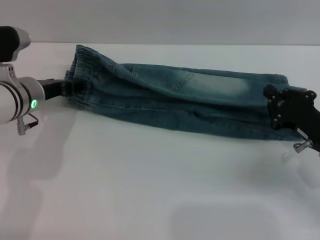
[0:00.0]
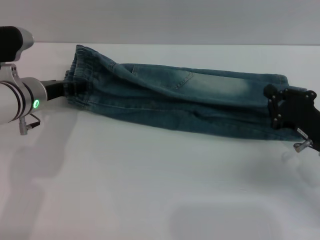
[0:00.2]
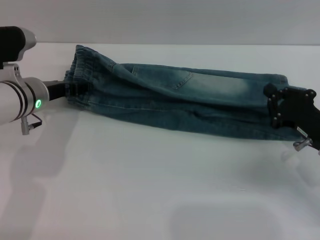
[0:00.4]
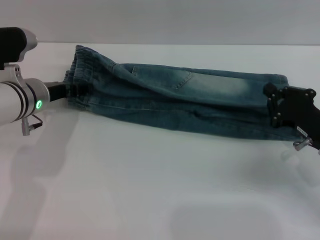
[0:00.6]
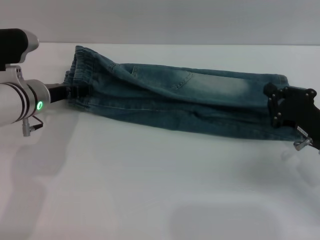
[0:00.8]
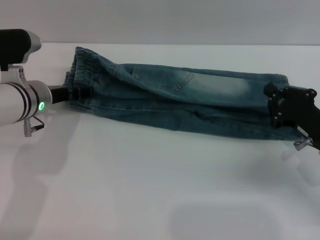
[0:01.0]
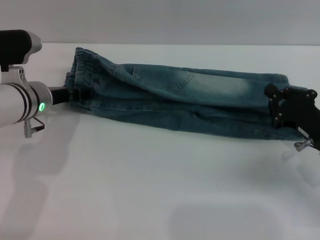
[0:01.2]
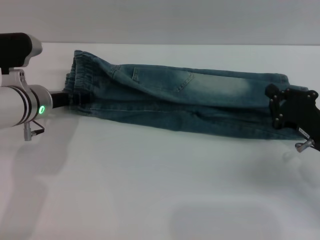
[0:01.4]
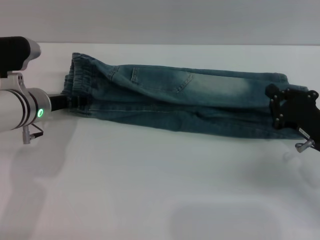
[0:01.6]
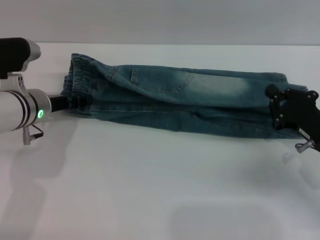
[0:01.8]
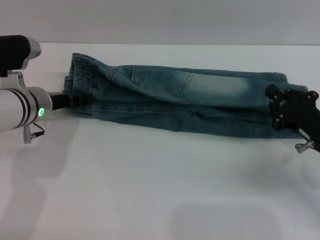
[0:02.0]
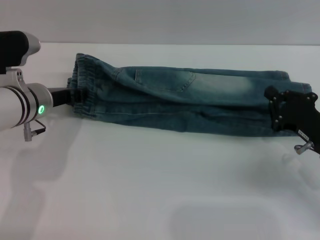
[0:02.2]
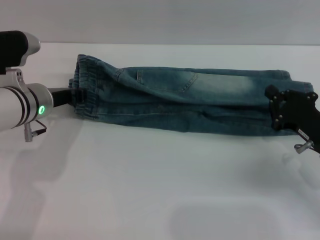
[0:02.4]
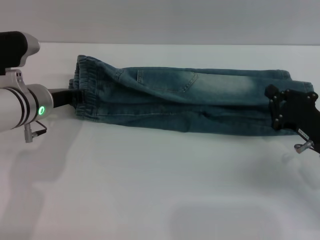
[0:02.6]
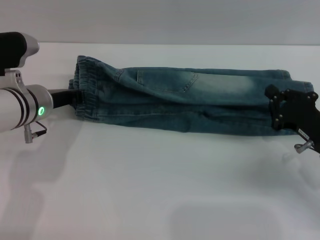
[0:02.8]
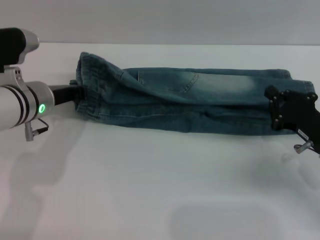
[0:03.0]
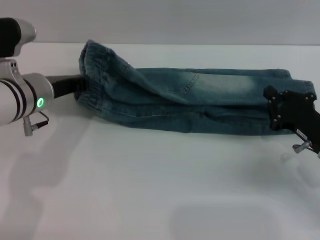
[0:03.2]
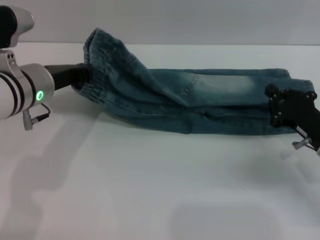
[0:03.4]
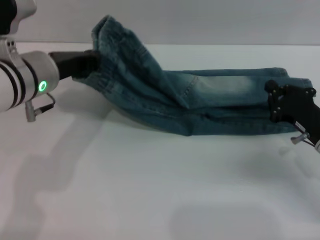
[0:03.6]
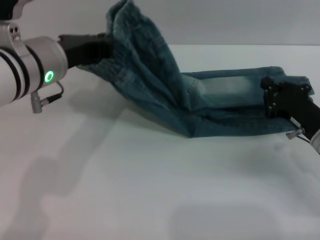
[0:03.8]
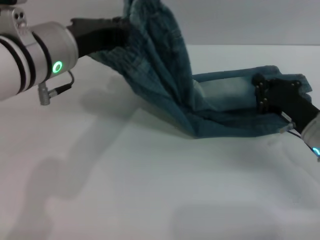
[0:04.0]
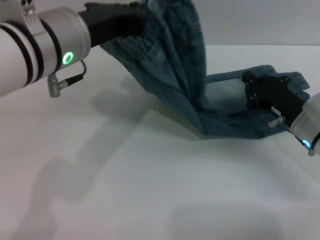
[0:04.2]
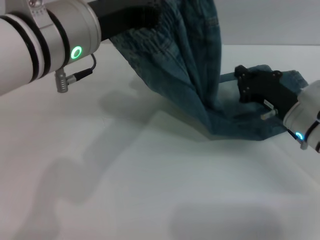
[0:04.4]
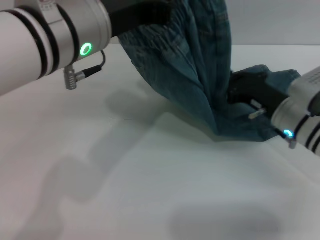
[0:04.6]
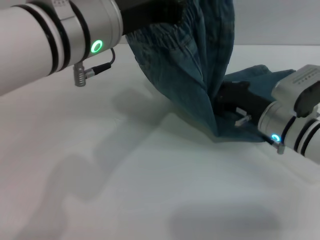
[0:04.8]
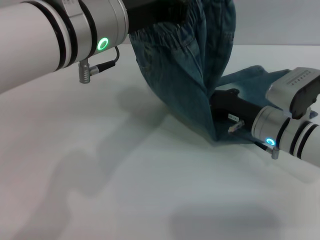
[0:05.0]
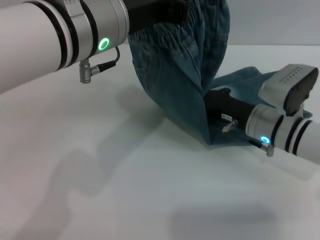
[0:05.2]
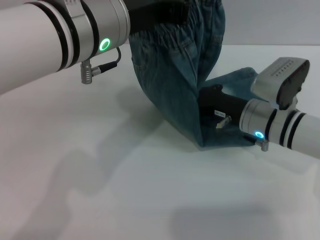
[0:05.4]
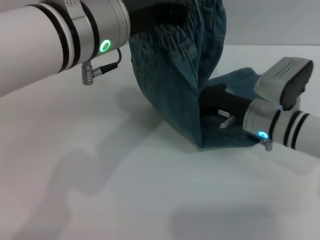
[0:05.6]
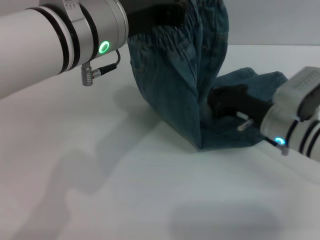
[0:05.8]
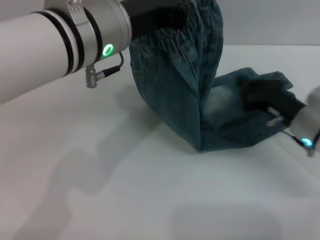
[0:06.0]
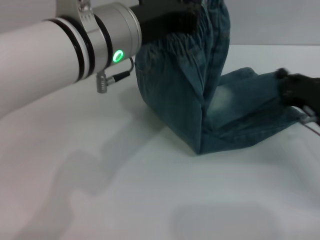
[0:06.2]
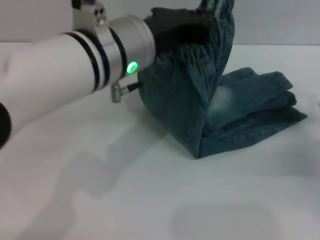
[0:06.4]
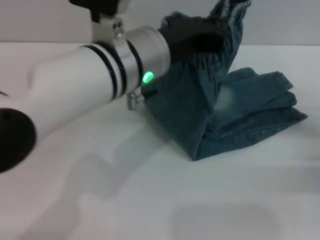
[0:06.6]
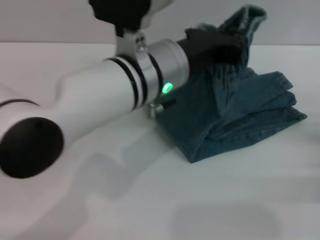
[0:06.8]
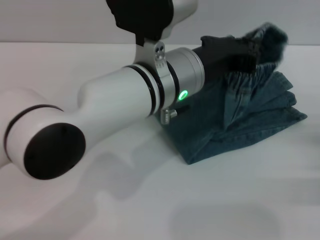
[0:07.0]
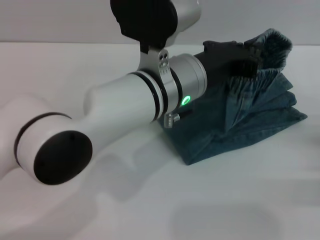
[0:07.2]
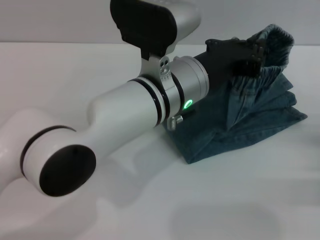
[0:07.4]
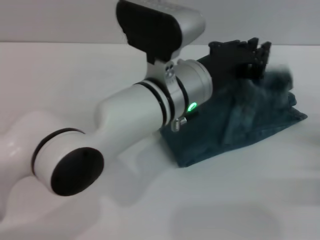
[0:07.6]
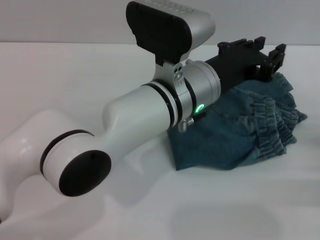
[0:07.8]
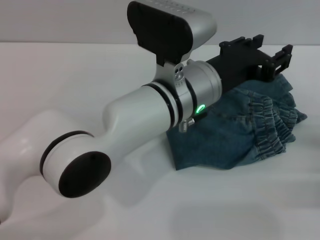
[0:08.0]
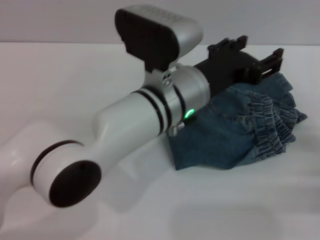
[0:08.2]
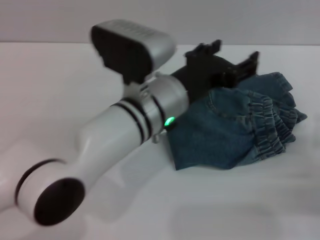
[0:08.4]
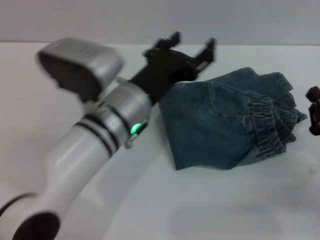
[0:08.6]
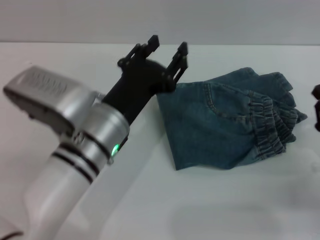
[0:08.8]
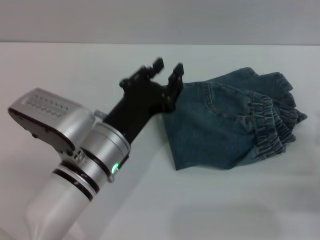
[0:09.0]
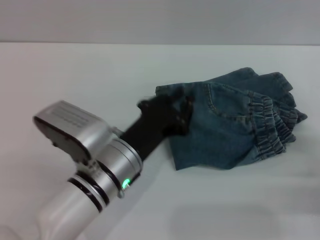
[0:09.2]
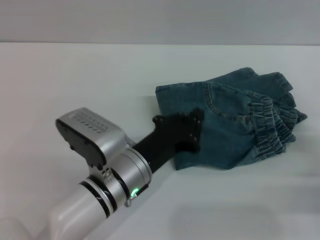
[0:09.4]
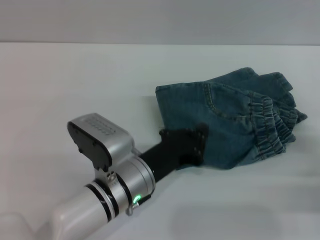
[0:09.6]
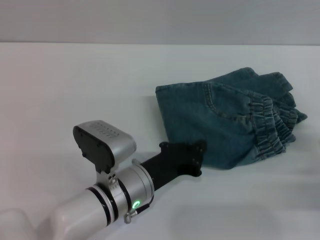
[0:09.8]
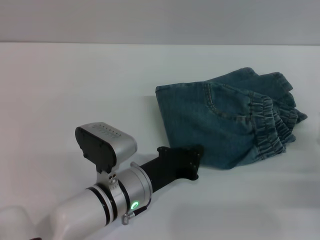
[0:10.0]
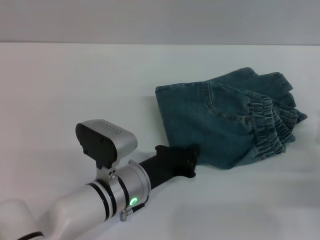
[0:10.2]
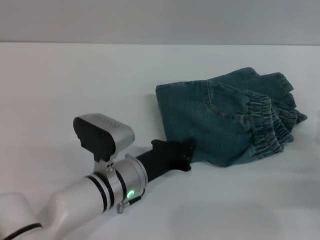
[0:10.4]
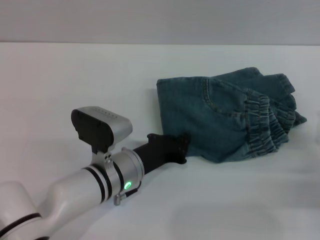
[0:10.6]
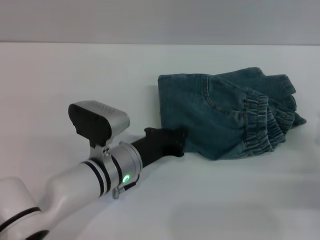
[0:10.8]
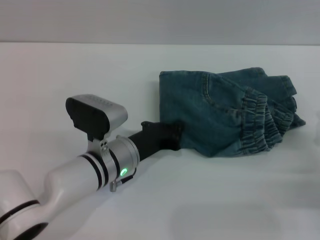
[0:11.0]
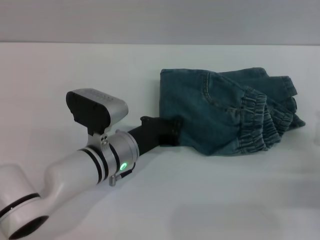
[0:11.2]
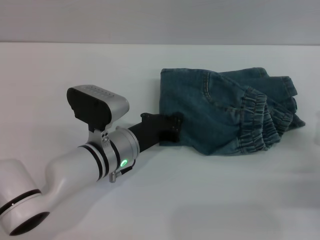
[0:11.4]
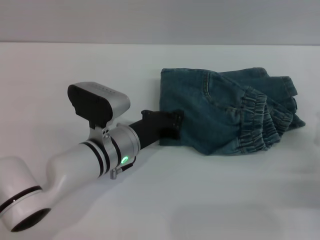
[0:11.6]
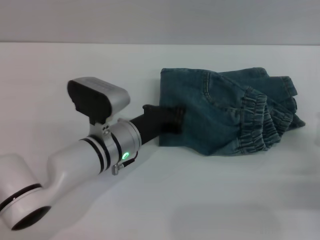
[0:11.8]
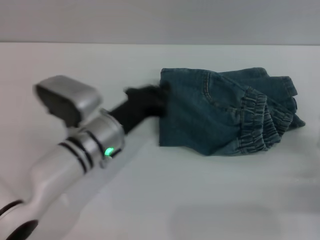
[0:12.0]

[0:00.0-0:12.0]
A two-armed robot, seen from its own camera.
Step, 0:00.0 to 0:02.4: Fold the bottom of the pants upward with both grippers.
Step, 0:02.6 to 0:08.0: Fold the pants from left to right with the left gripper.
Step, 0:08.2 to 0:12.0: Place the folded trousers onto the center area with the left grippers.
0:00.0 to 0:01.6: There are only small adjustments of the grippers.
0:01.6 to 0:03.0: The left gripper closes up.
0:03.0 to 0:04.4: The right gripper heads forward, covering roughly 5 cm; the left gripper shifts some 20 cm upward, to the right and backward.
0:04.4 to 0:06.0: The right gripper travels to the left and back again, roughly 5 cm each way.
0:06.0 to 0:07.6: The left gripper heads downward and to the right, covering approximately 10 cm, while the right gripper moves to the right and backward, approximately 15 cm.
0:07.6 to 0:09.0: The left gripper moves to the left, downward and backward, roughly 15 cm, and opens its fingers.
0:09.0 to 0:10.4: The left gripper travels downward by roughly 5 cm, and closes up.
0:10.4 to 0:12.0: The left gripper ends up approximately 5 cm from where it was.

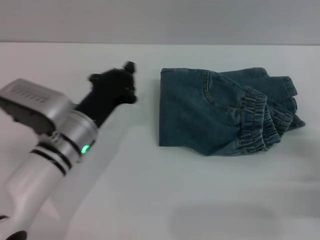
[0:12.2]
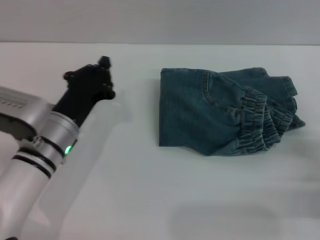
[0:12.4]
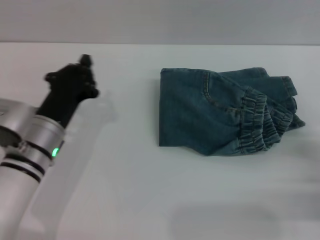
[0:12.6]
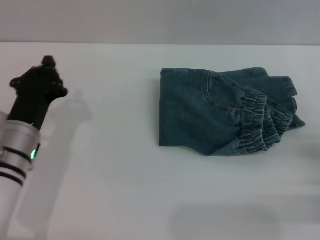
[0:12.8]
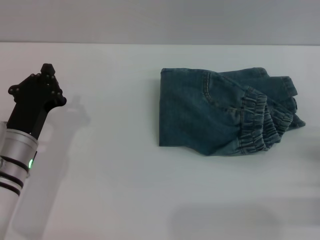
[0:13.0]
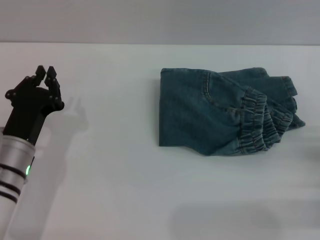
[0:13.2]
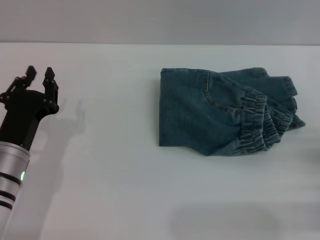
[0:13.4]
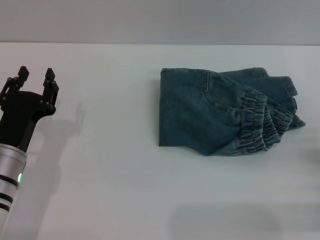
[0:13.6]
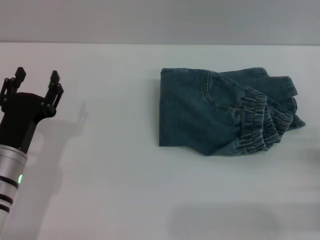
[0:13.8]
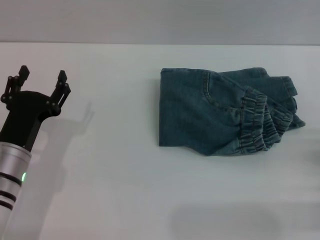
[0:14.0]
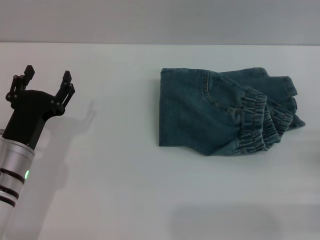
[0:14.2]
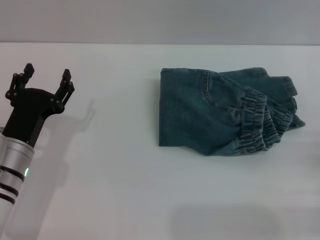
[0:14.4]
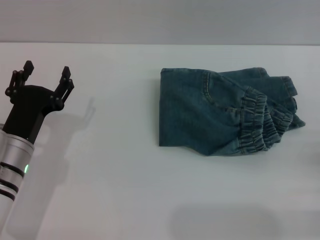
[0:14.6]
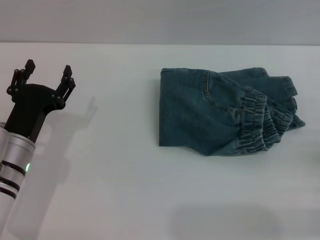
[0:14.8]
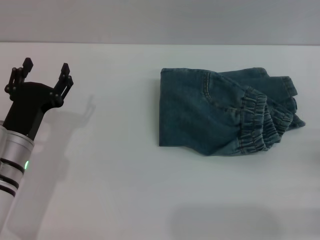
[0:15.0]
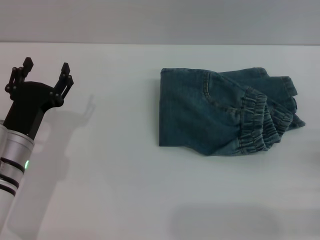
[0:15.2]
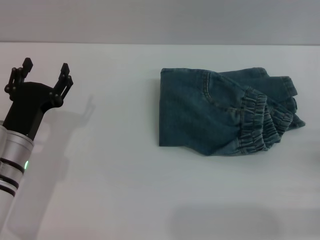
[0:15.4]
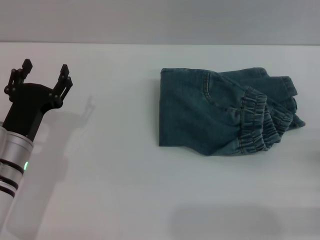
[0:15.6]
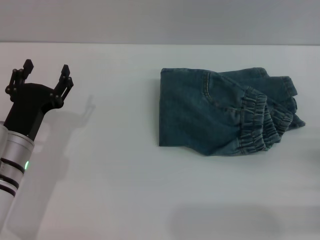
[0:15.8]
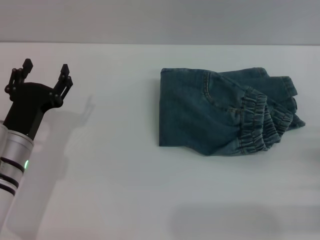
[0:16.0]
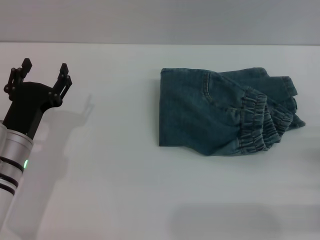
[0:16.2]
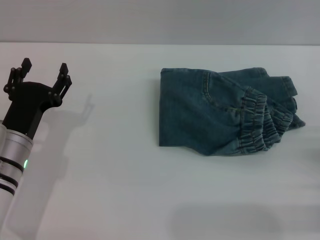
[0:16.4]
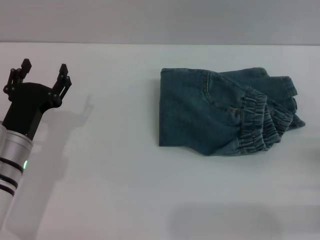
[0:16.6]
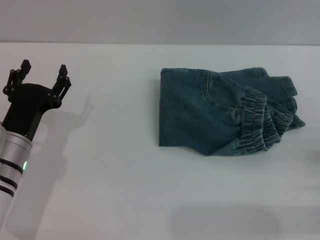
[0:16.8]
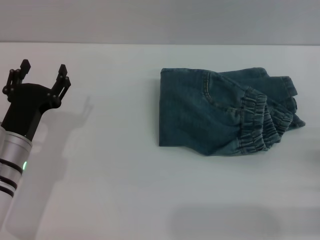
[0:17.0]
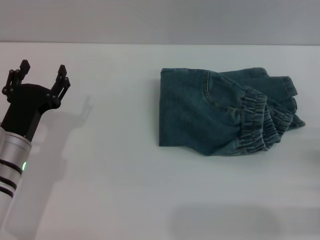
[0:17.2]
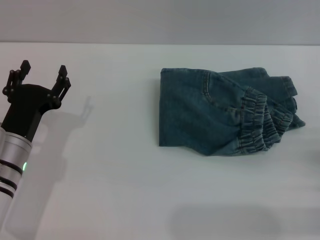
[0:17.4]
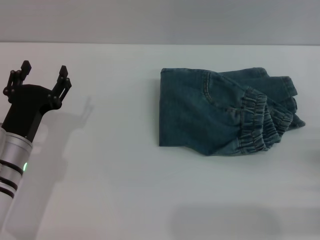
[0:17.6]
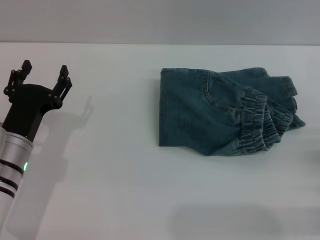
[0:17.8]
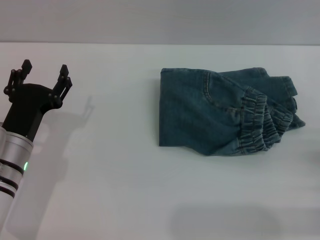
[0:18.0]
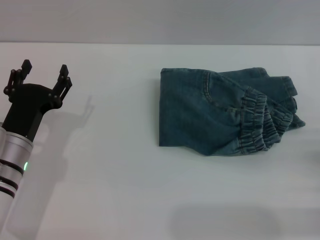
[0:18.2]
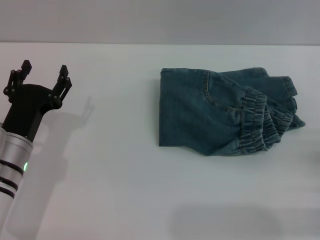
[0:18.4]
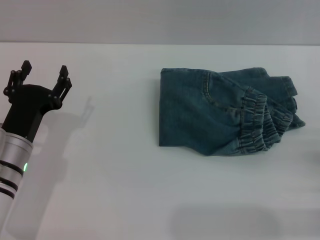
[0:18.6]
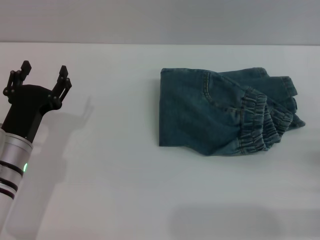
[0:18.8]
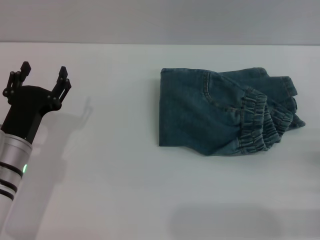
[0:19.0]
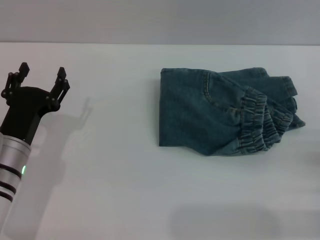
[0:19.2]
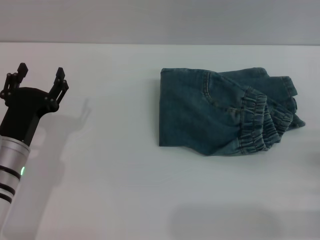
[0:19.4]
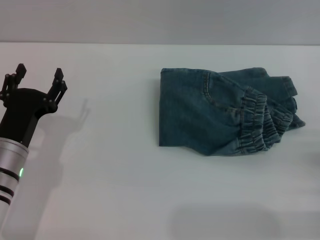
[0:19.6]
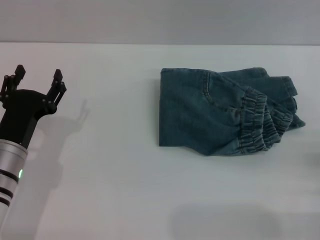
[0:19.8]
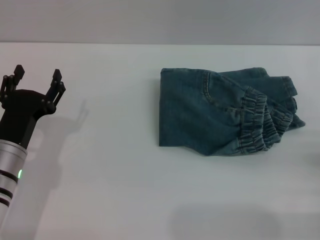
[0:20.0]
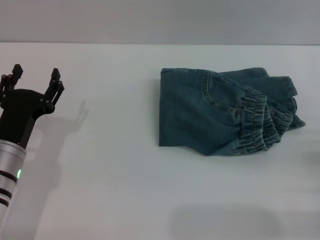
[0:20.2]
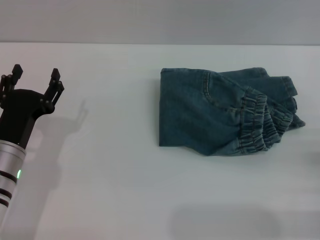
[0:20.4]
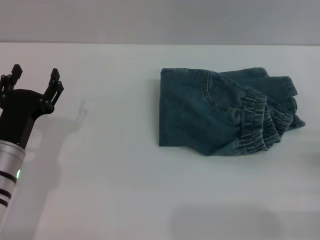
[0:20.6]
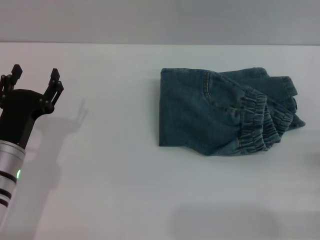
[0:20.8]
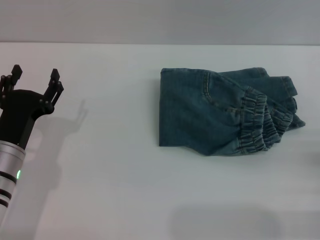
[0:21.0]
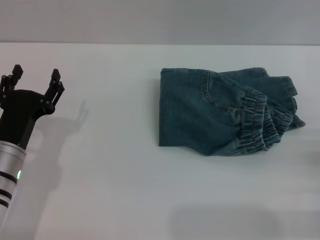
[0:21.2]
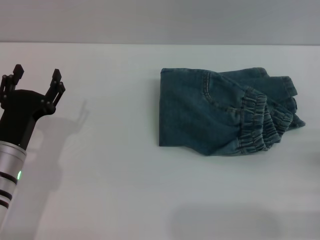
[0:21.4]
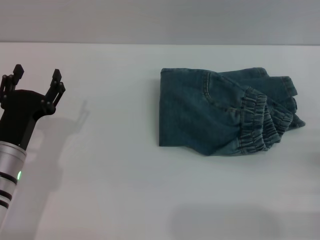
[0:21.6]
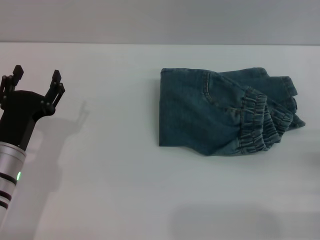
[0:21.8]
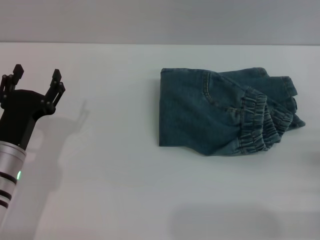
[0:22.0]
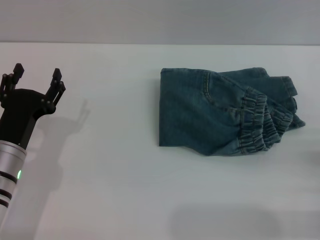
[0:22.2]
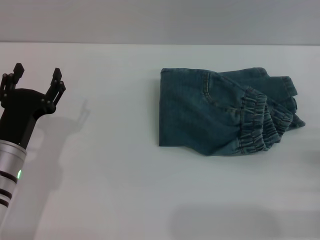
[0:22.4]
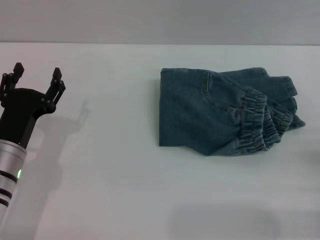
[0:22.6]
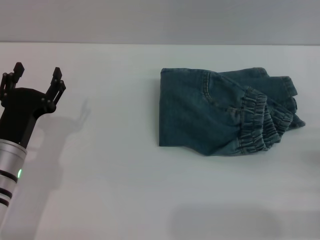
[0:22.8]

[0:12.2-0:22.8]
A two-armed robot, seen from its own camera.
0:12.2 to 0:13.8: The right gripper opens. The left gripper goes some 10 cm to the left and backward, and opens up.
0:13.8 to 0:15.2: The grippers stay close to where they were, moving slightly.
0:15.2 to 0:18.2: Neither gripper changes place.
0:18.2 to 0:19.8: Neither gripper changes place.
0:19.8 to 0:22.8: The two grippers keep their place.
